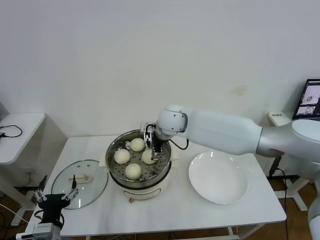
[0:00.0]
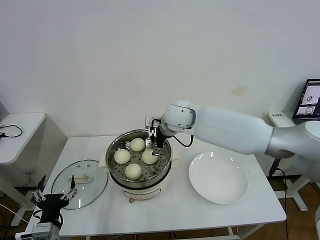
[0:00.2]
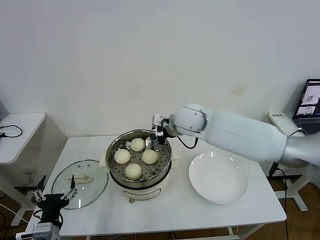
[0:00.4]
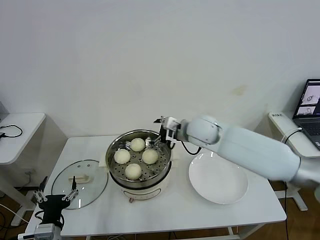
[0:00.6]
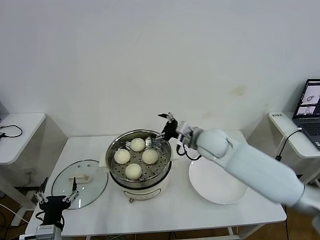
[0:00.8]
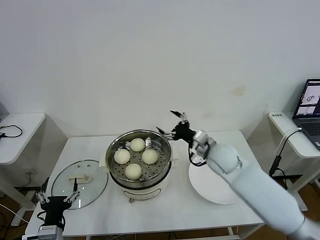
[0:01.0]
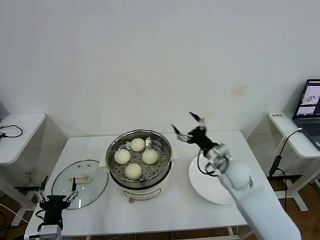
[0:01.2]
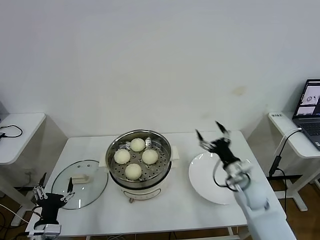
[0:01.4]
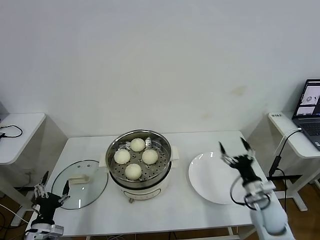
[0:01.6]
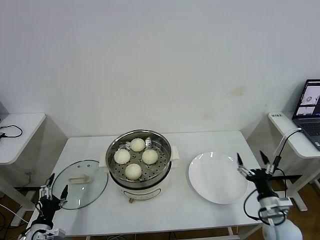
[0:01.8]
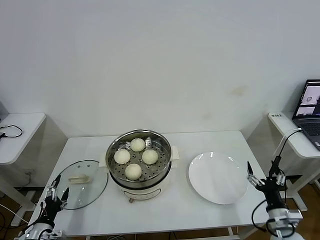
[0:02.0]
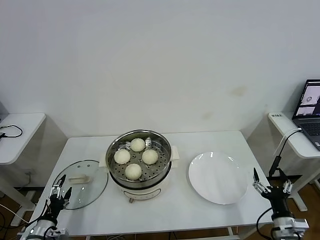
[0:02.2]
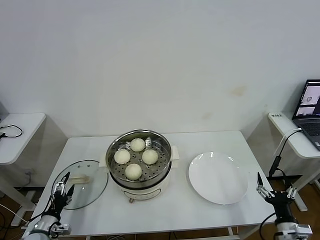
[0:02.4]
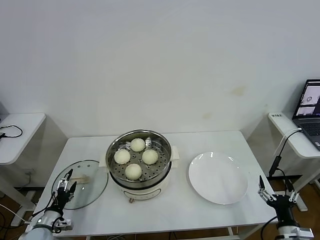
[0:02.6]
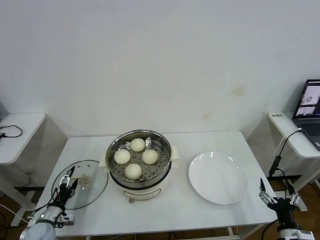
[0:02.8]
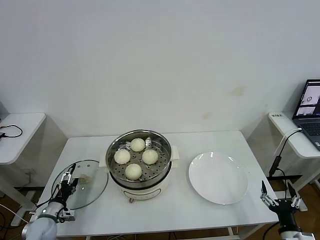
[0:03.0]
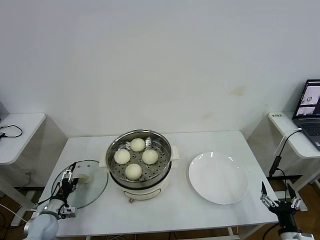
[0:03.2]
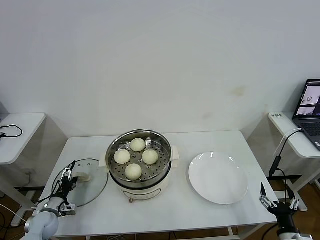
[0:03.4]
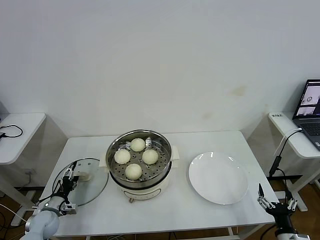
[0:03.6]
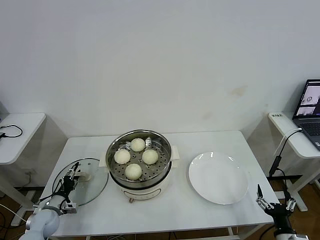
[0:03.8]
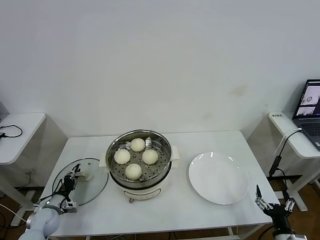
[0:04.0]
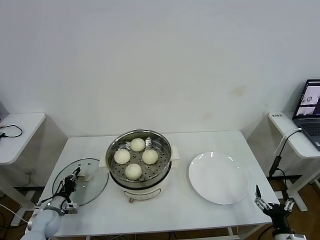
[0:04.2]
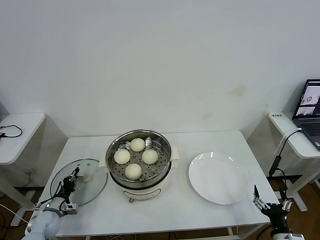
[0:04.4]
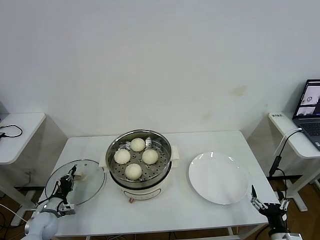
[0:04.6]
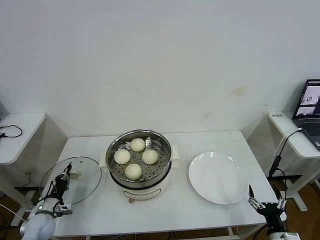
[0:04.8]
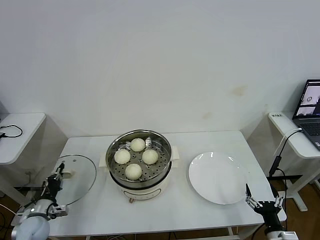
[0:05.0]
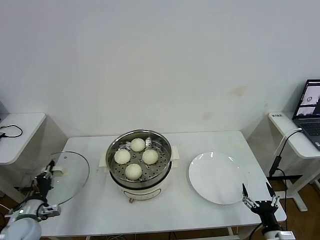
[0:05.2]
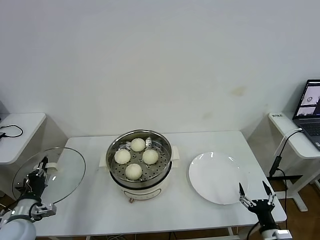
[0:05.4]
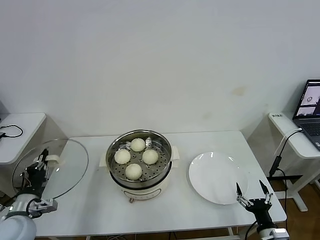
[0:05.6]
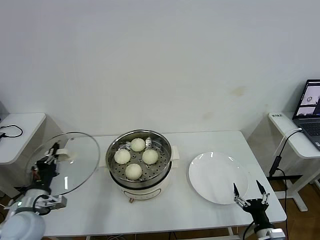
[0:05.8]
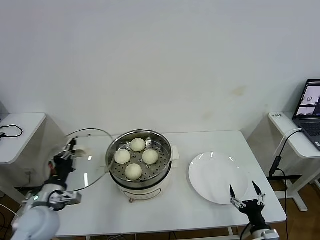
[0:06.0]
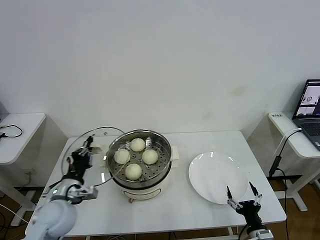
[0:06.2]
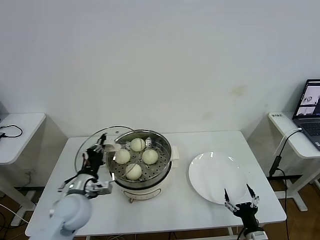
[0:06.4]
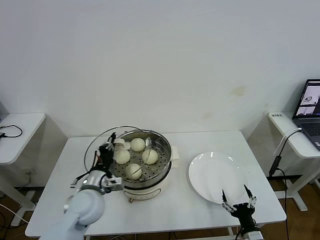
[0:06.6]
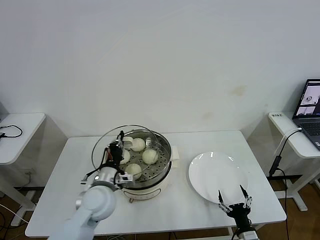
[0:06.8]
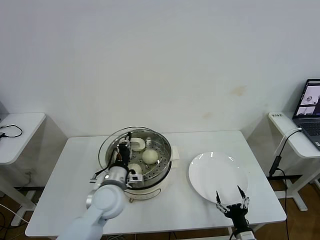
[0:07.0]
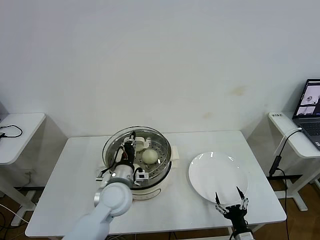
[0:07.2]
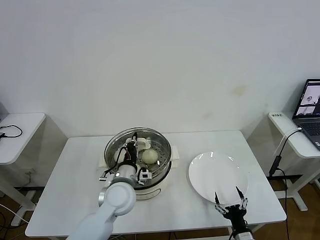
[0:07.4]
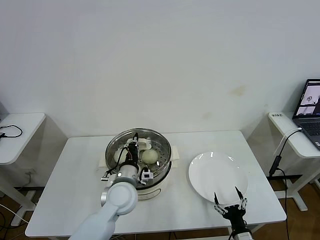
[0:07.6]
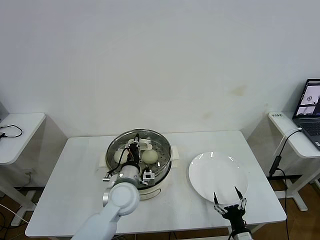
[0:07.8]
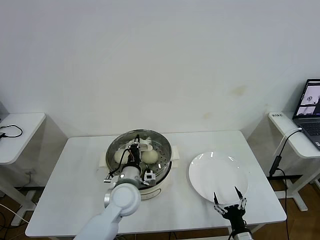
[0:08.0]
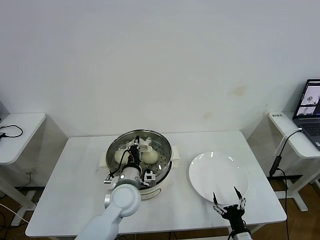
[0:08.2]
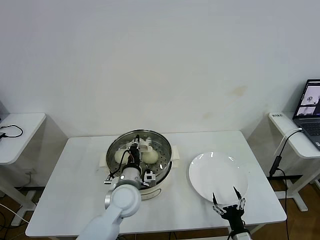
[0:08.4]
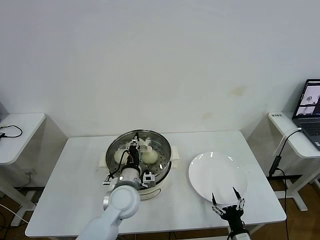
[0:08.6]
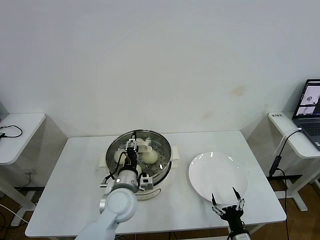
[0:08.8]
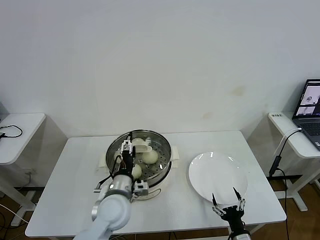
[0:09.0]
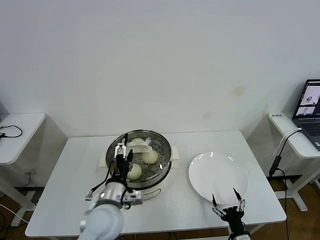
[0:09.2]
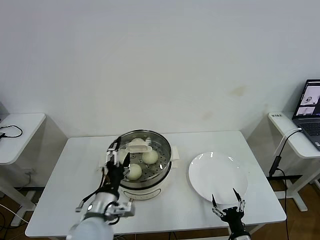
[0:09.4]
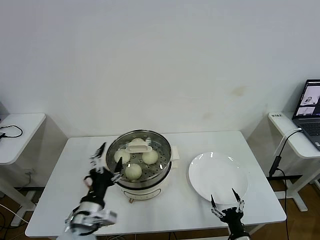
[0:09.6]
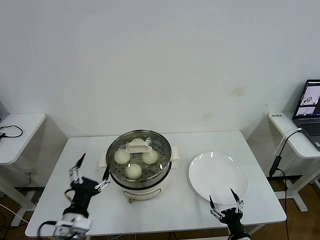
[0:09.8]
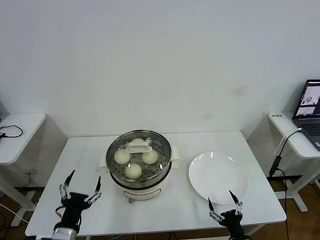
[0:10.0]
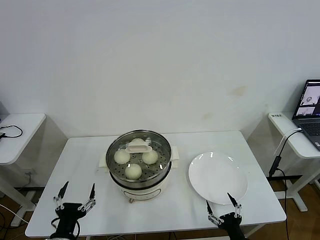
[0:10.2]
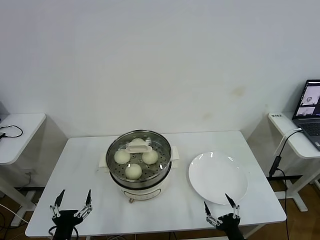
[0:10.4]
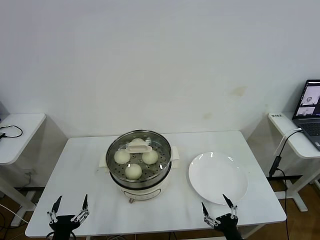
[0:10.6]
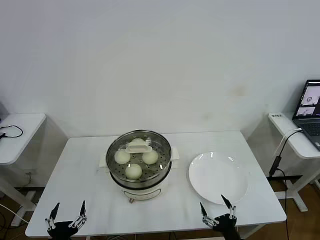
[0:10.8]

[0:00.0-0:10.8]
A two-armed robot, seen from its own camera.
Task of the whole recording: take steamed baozi put them in steamer then cover it.
Step, 0:00.0 to 0:04.4: Grasp the pot lid with left gripper.
Step, 0:04.6 to 0:08.8: Place the pot lid on the steamer with left gripper.
0:00.0 to 0:01.6: The right gripper moves to the right, backward and downward, some 40 cm. Meanwhile the left gripper shifts about 10 cm to the left and downward.
0:01.6 to 0:03.0: The left gripper goes approximately 15 cm forward, downward and to the left, while the right gripper moves backward and to the right, some 15 cm.
0:03.0 to 0:04.6: The left gripper closes.
0:04.6 to 0:06.2: The left gripper travels upward and to the right by roughly 25 cm. Meanwhile the right gripper moves about 5 cm.
0:06.2 to 0:07.8: The right gripper shifts by roughly 5 cm. Meanwhile the left gripper heads to the right, covering approximately 20 cm.
0:07.8 to 0:09.2: The left gripper shifts about 5 cm backward, and opens.
0:09.2 to 0:10.8: The left gripper moves backward, to the left and downward, roughly 25 cm; the right gripper is displaced upward by some 5 cm.
